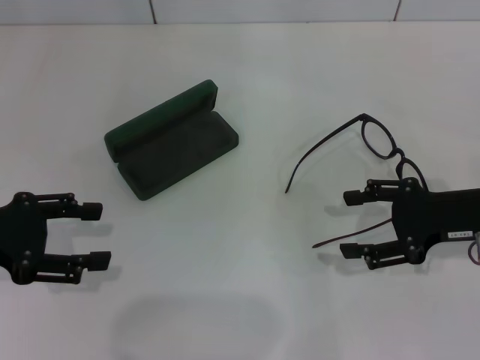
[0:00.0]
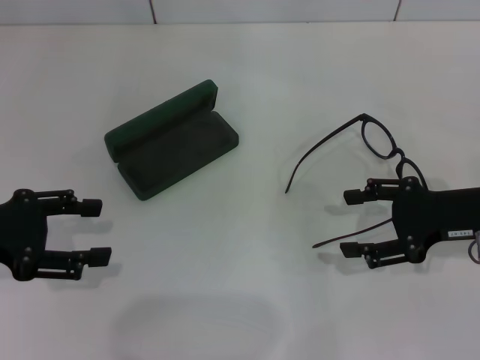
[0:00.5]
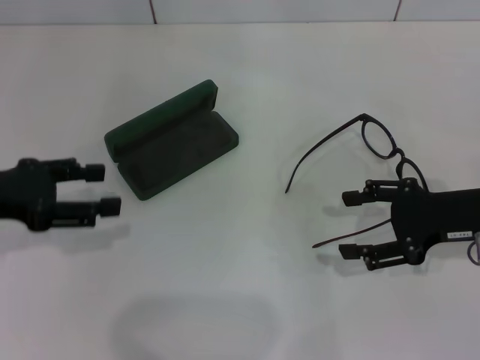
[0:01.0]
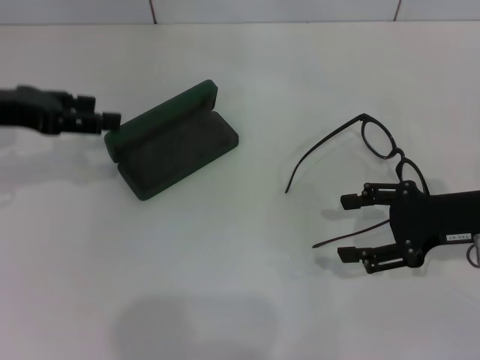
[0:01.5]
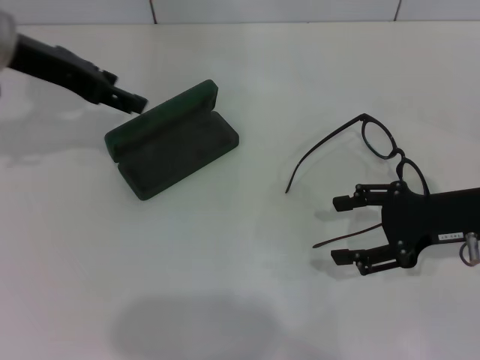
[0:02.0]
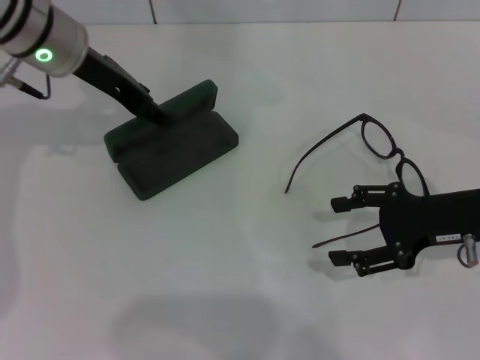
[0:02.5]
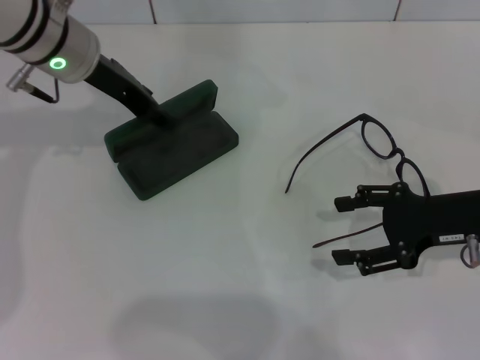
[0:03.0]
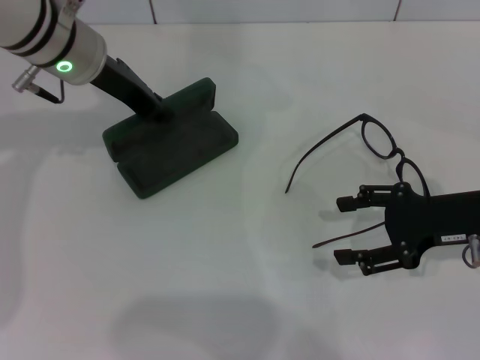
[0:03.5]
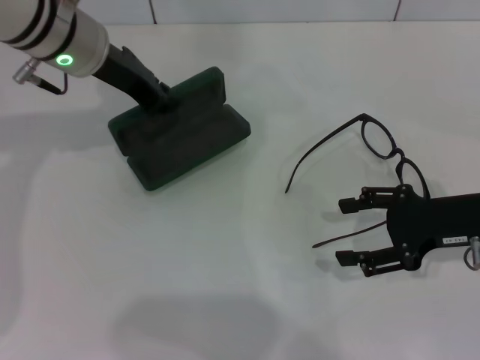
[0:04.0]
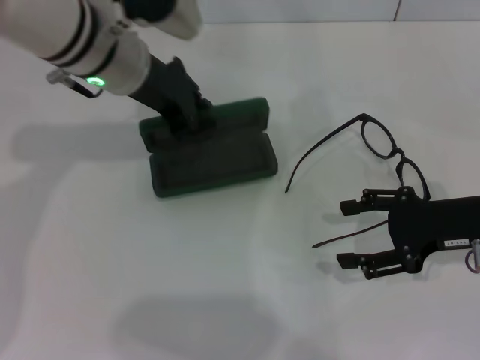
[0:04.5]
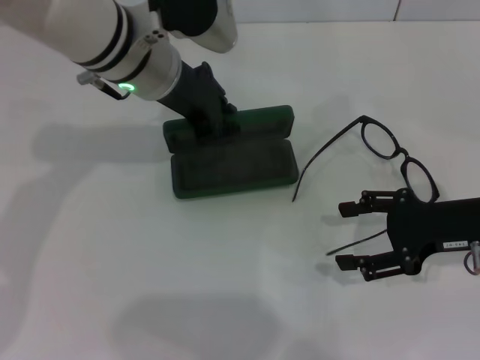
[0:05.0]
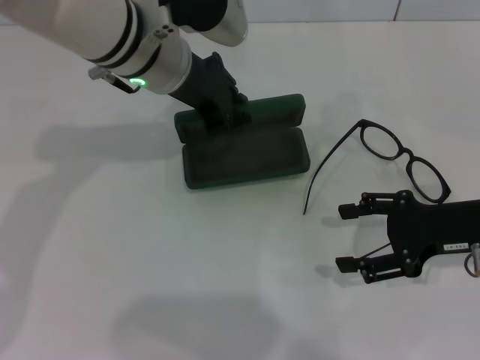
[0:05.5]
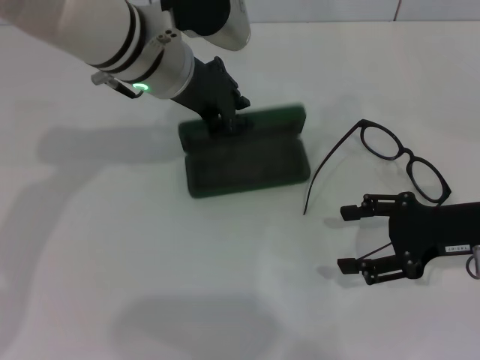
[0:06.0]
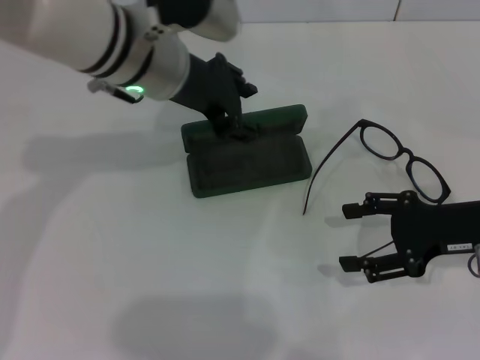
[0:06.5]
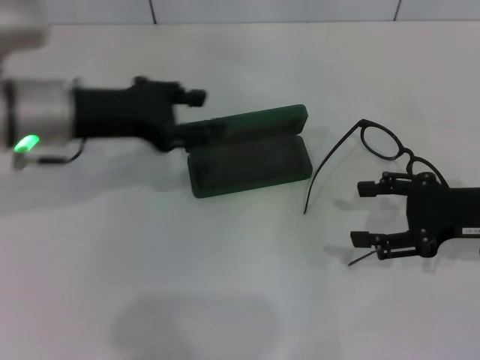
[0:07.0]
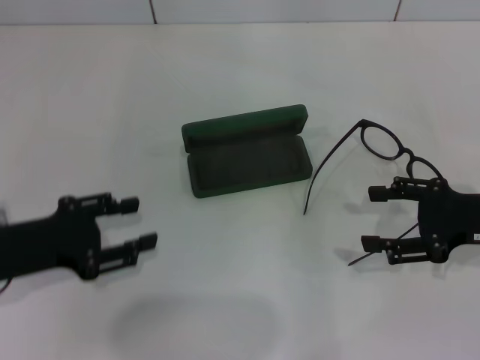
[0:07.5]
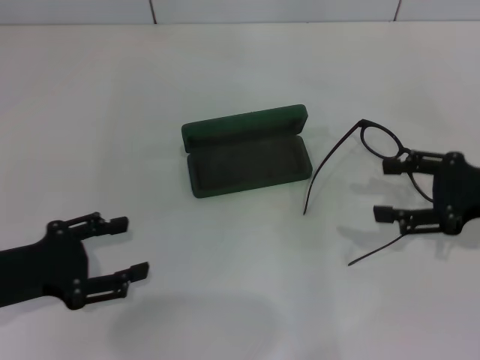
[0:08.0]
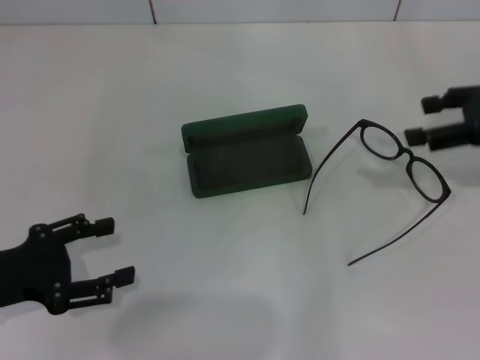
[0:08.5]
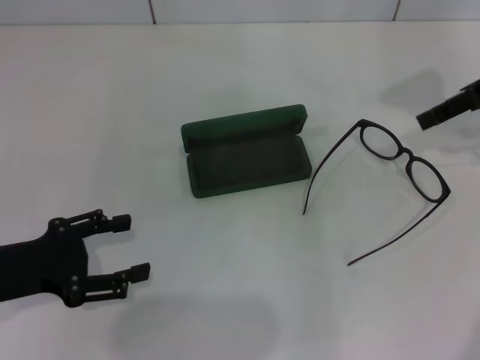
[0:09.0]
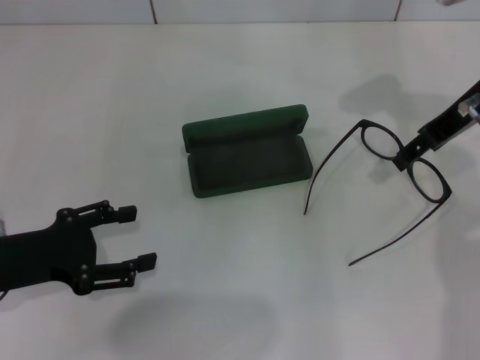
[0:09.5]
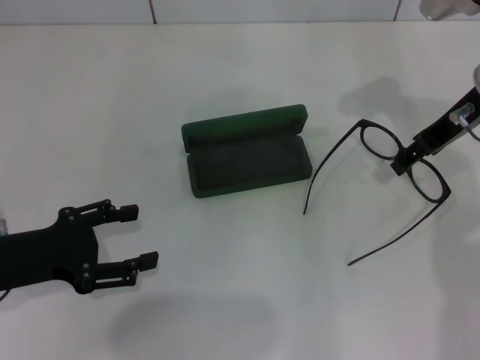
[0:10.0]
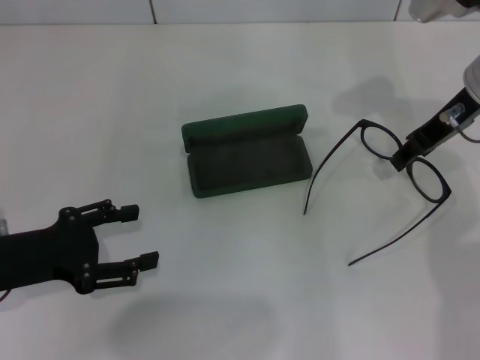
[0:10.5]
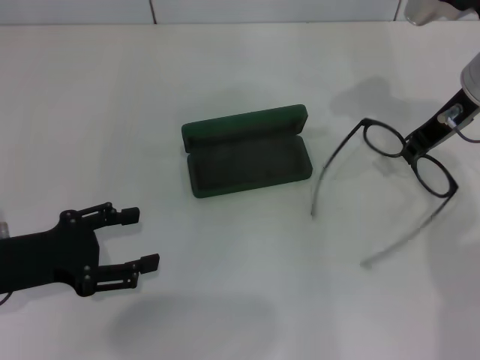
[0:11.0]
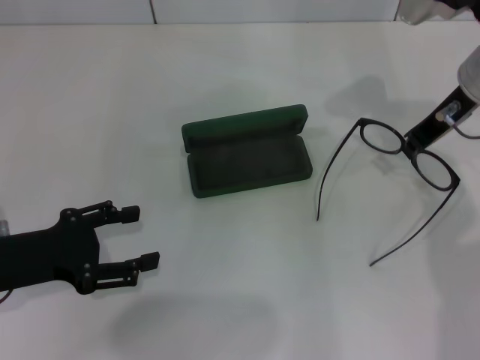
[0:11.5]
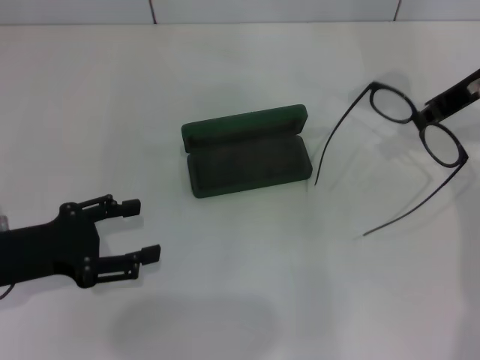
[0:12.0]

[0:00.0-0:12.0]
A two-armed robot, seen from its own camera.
Step, 0.0 to 3.0 s: Grab the glasses case with your left hand.
Step, 3.5 to 6.0 s: Place the glasses case in the center of the table with your left hand.
Step, 6.5 to 10.5 s: Grab the eyeglass frame with your right hand.
0.0 to 2.0 s: The left gripper is displaced forward, upward and to the right by roughly 20 cm.
2.0 to 4.0 s: The left gripper moves to the right, some 5 cm, and closes its fingers.
4.0 to 6.0 s: The left gripper moves to the right, roughly 5 cm.
6.0 to 8.0 s: The left gripper moves to the left, backward and downward, approximately 30 cm, and opens its fingers.
8.0 to 10.0 s: The right gripper shifts roughly 15 cm forward, to the left and upward.
10.0 to 12.0 s: The right gripper closes its fingers.

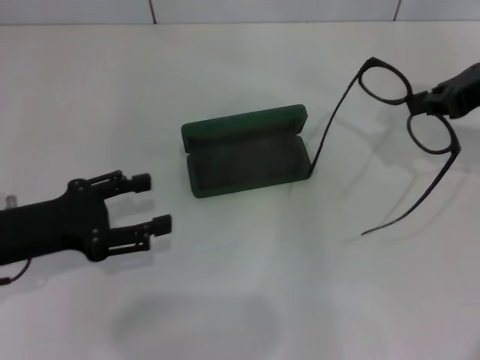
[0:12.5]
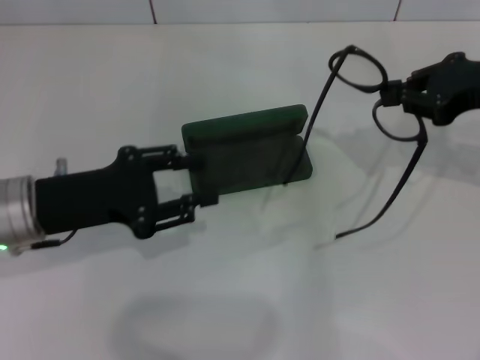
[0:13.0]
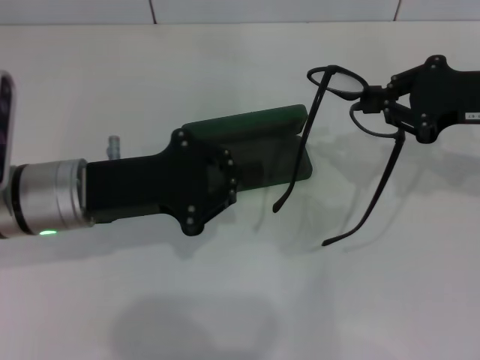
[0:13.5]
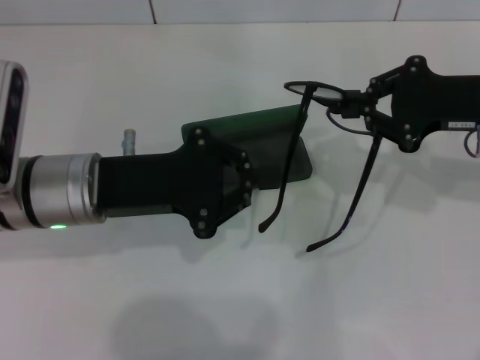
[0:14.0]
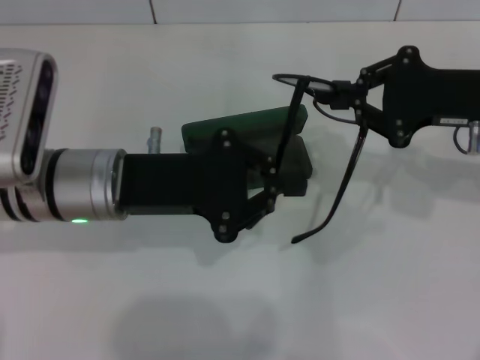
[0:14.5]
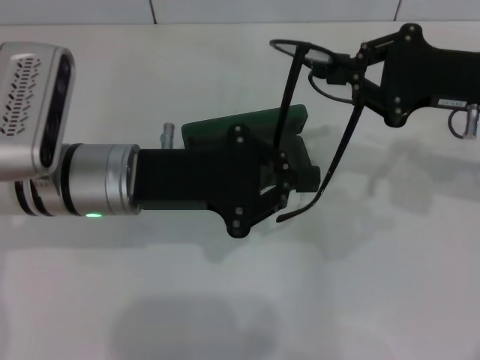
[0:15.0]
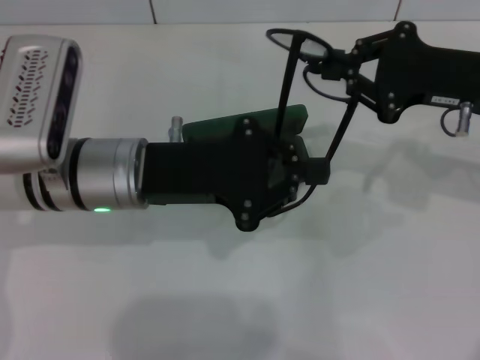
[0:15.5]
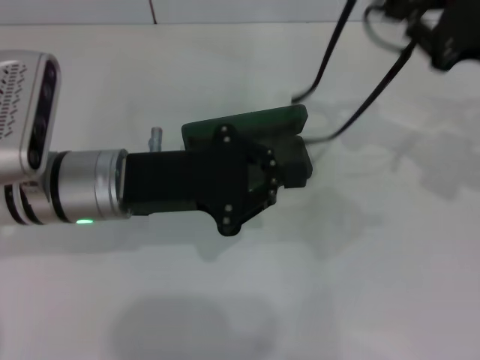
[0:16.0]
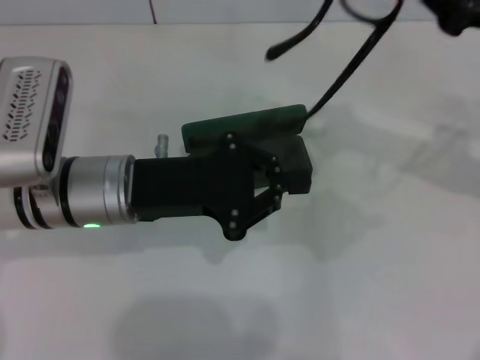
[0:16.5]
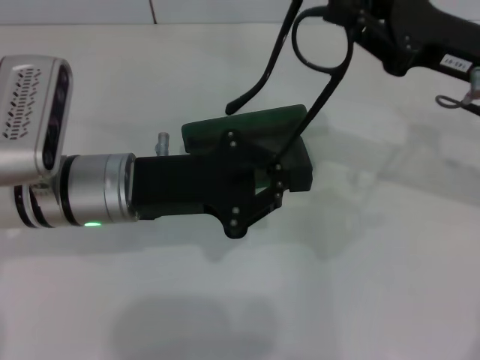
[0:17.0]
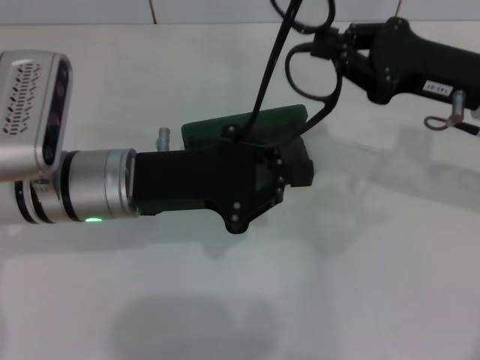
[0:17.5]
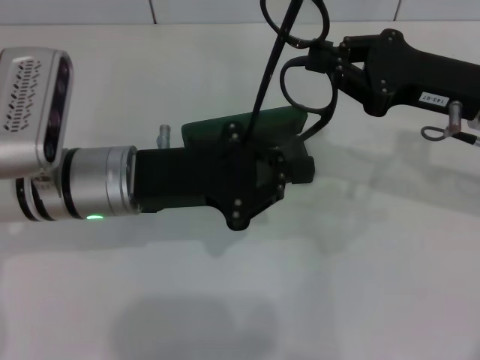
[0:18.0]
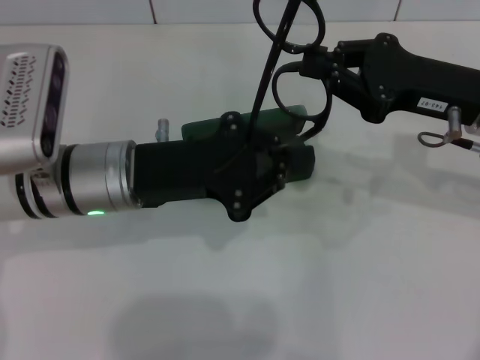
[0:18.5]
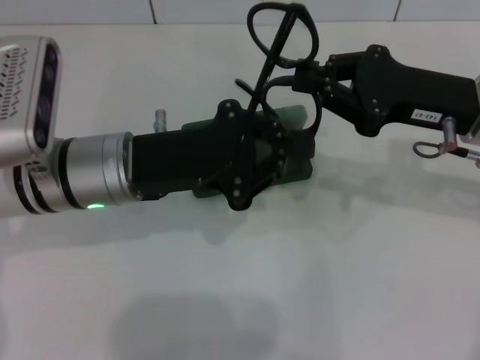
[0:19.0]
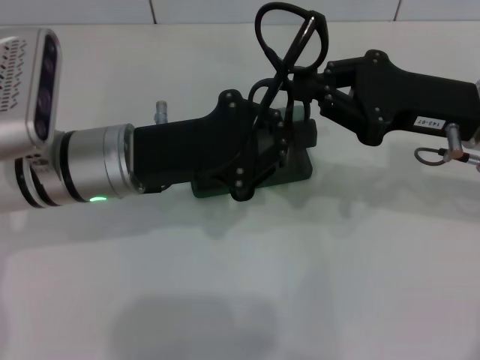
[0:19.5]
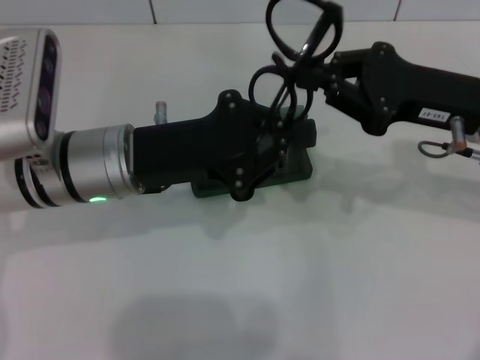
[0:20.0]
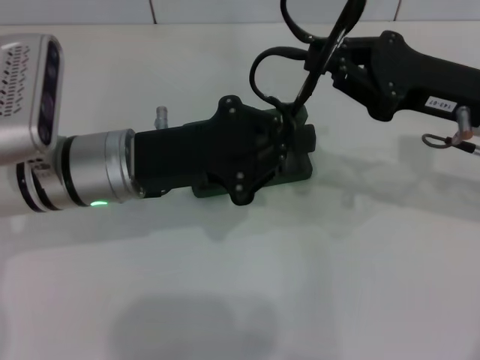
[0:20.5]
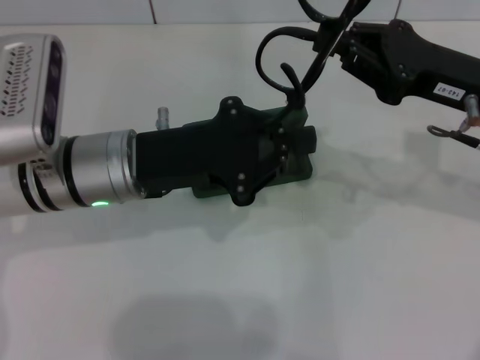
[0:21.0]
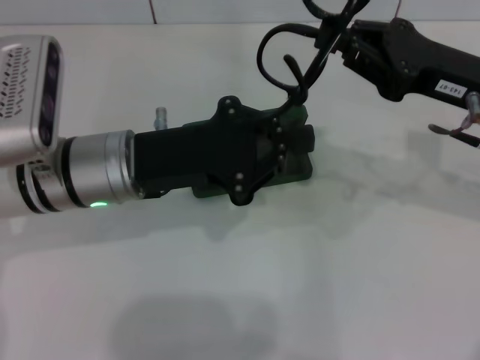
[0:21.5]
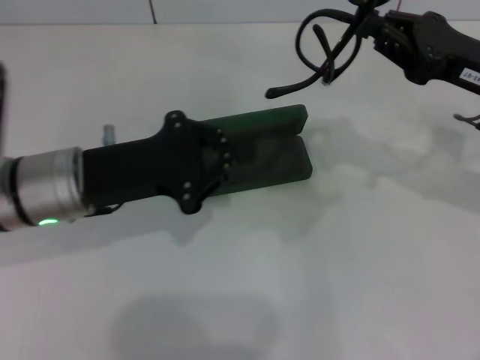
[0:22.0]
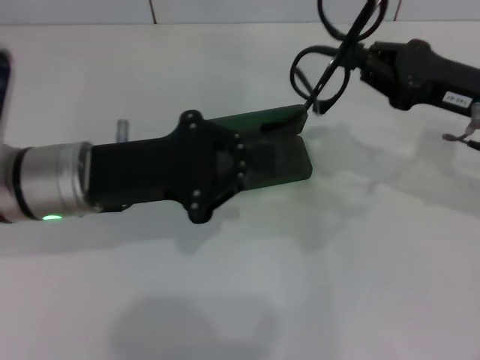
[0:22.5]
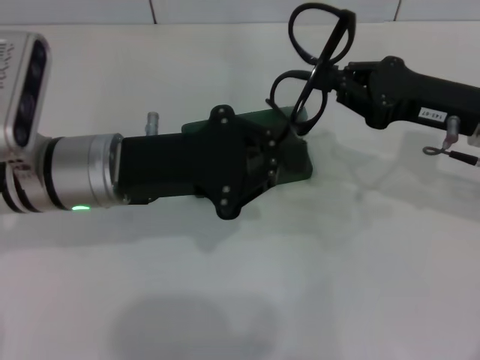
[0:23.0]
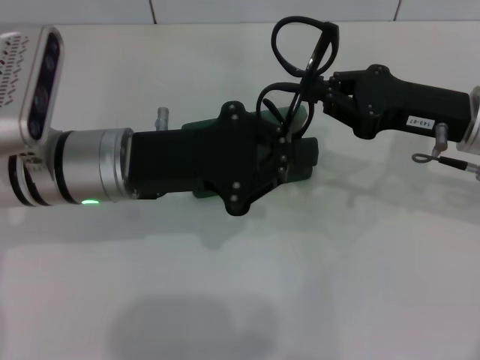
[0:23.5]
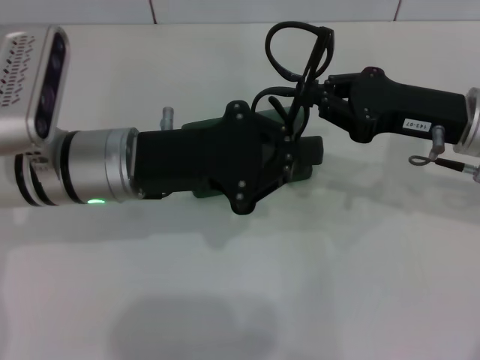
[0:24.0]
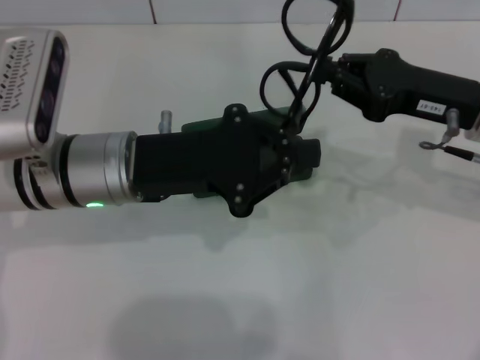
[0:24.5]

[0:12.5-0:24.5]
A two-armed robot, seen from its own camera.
12.5 to 14.5 s: The left gripper heads to the right and forward, covering about 15 cm, and closes; the right gripper changes place by roughly 5 cm.
16.5 to 18.5 s: The right gripper ends up some 5 cm from where it was.
18.5 to 24.5 s: The grippers make only small movements.

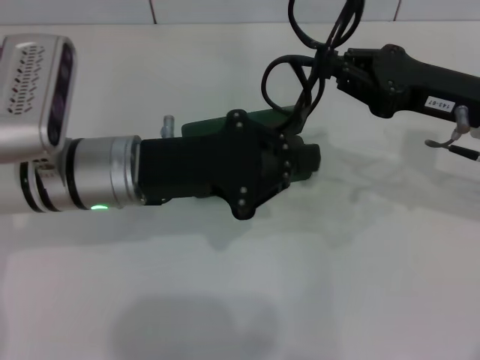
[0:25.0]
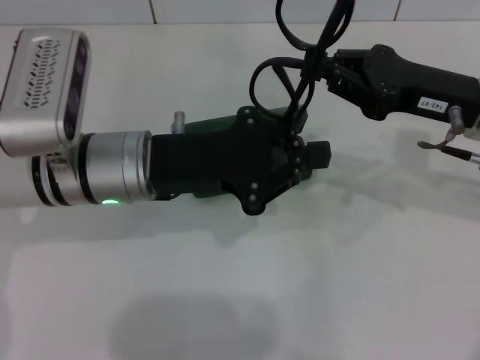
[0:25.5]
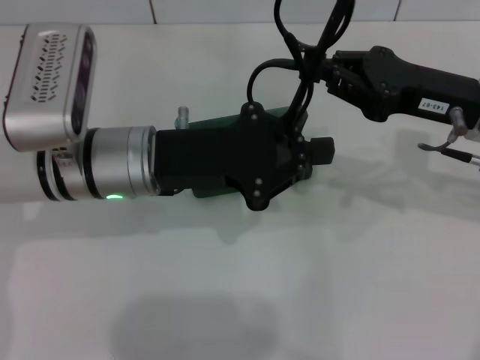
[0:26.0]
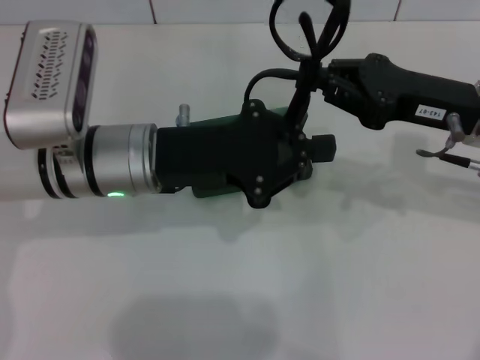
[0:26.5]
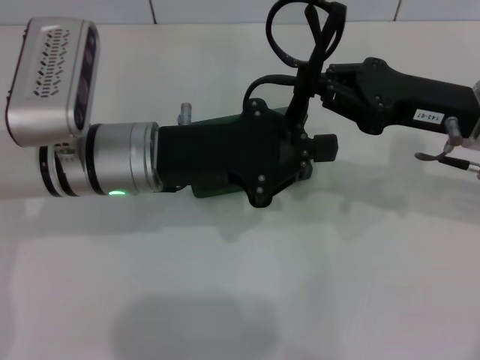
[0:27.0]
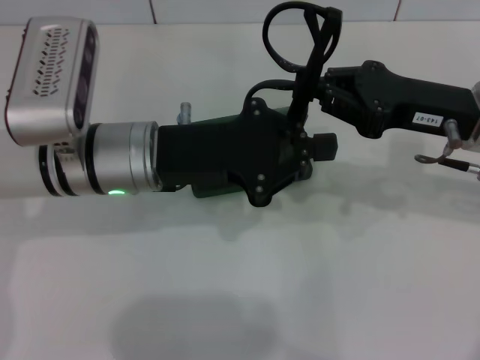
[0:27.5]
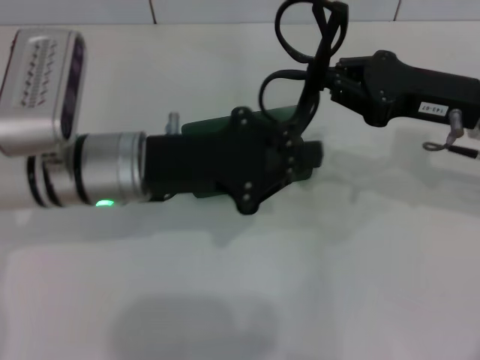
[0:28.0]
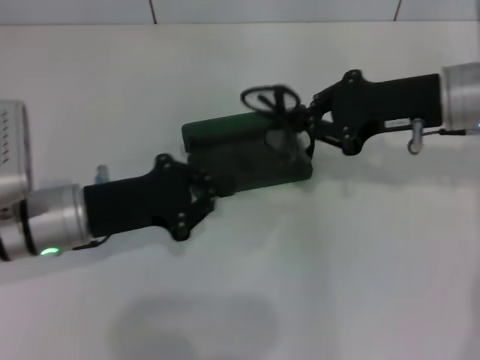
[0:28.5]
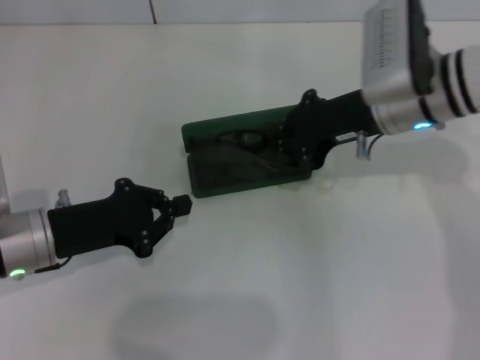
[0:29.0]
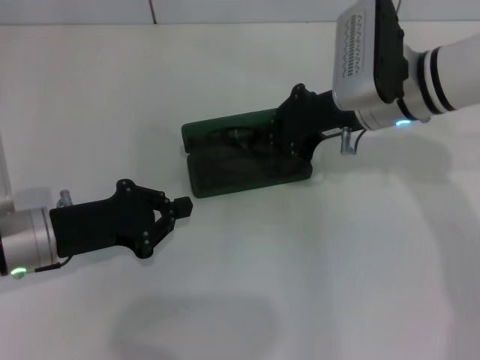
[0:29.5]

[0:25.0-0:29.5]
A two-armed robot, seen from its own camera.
Step, 25.0 to 27.5 s: Fold the frame with your left hand.
25.0 to 27.0 s: The grippers stay close to where they were, moving slightly.
27.0 to 29.5 s: The right gripper shifts some 10 cm to the left and forward. The left gripper travels to the left and downward by roughly 15 cm.
